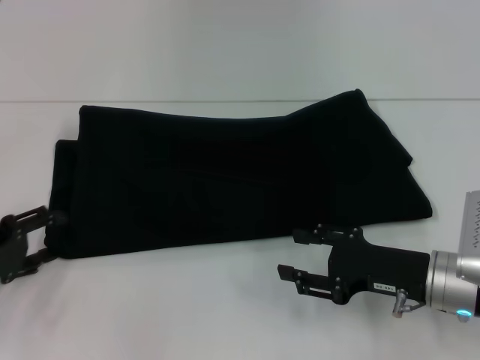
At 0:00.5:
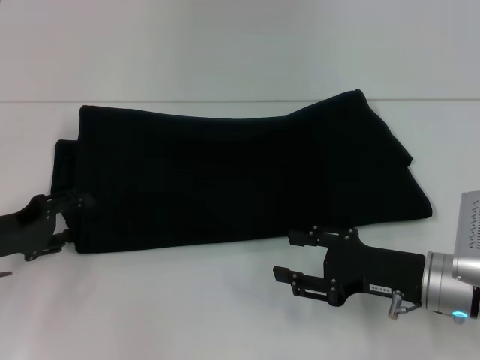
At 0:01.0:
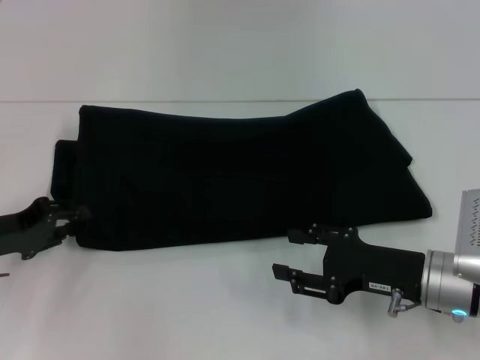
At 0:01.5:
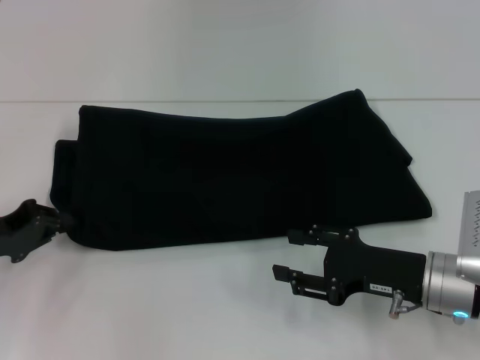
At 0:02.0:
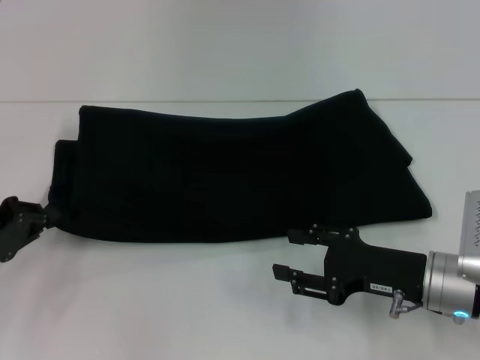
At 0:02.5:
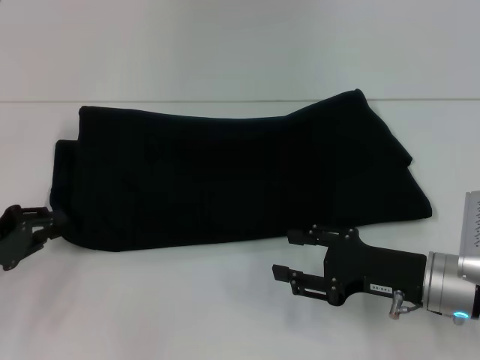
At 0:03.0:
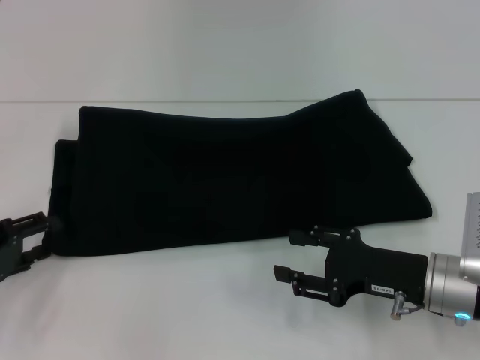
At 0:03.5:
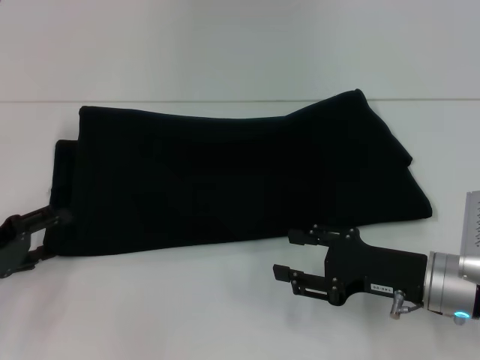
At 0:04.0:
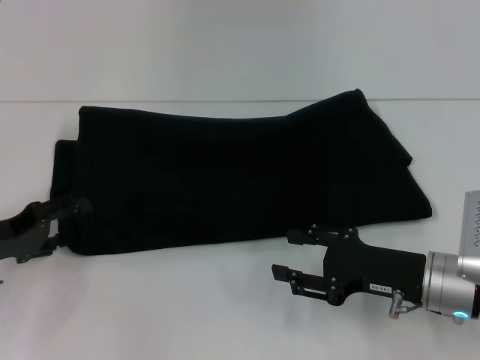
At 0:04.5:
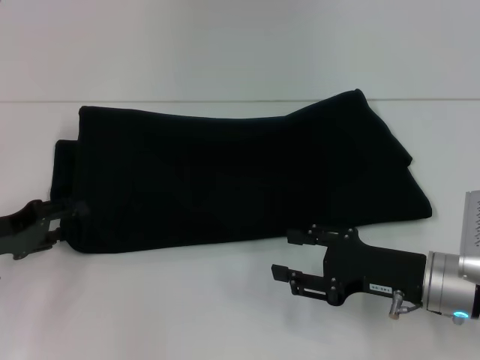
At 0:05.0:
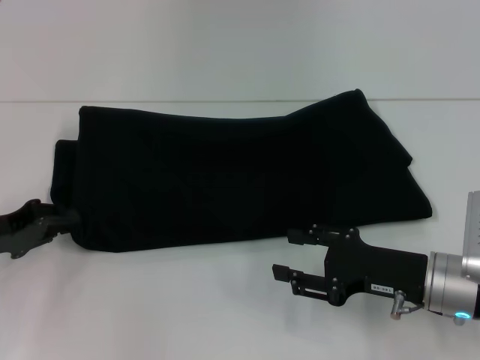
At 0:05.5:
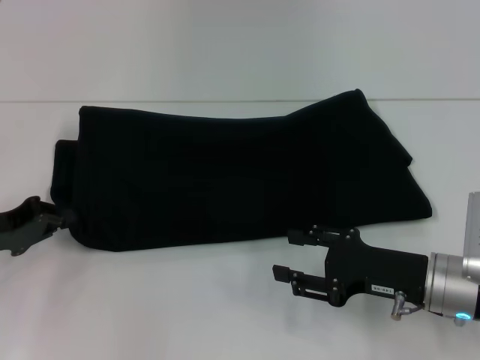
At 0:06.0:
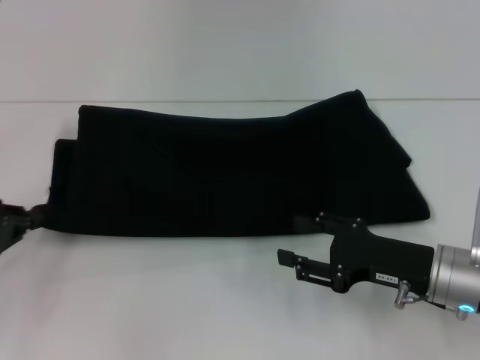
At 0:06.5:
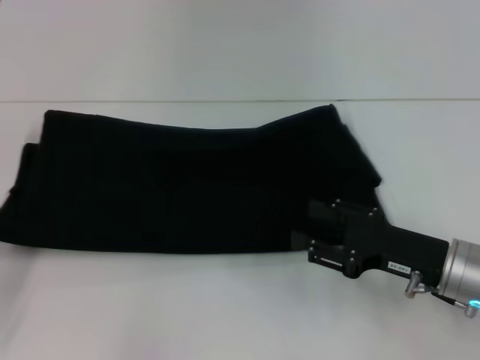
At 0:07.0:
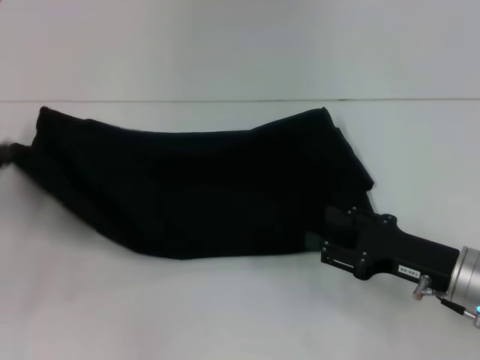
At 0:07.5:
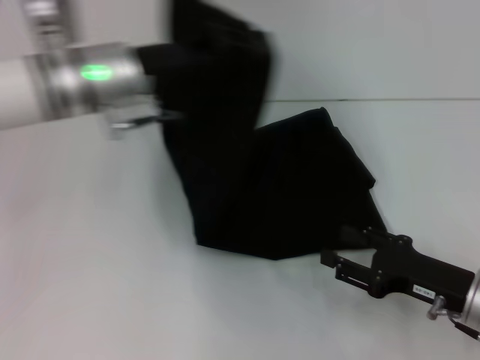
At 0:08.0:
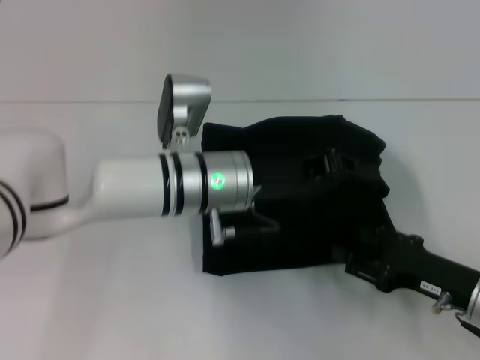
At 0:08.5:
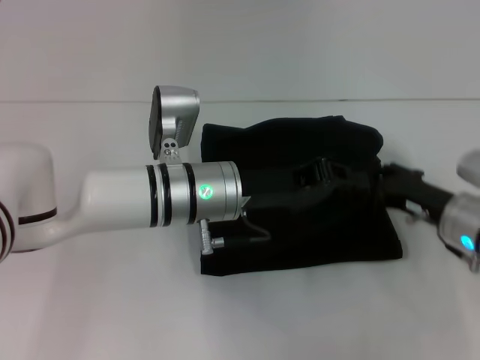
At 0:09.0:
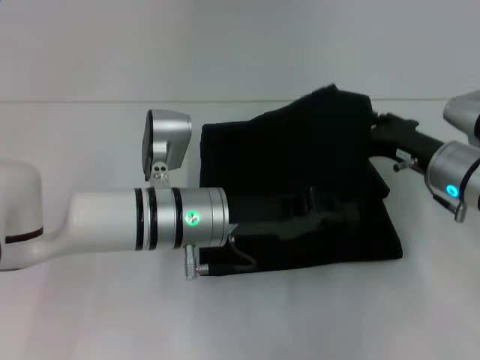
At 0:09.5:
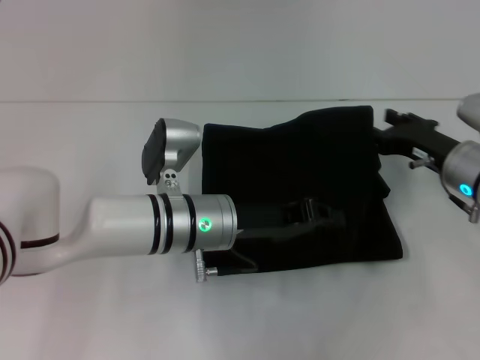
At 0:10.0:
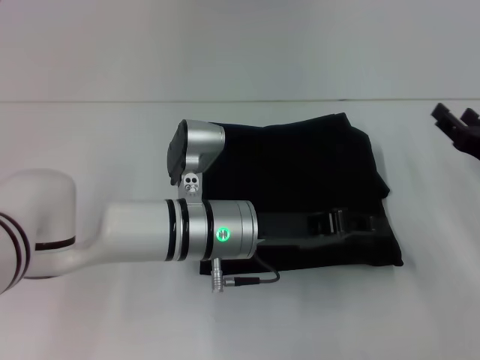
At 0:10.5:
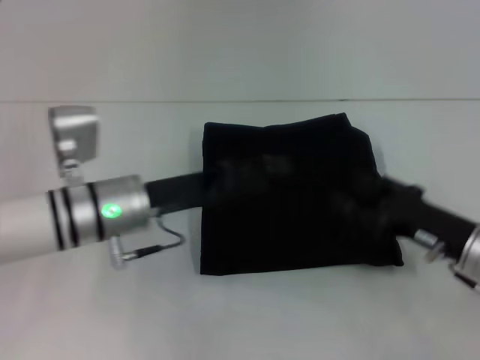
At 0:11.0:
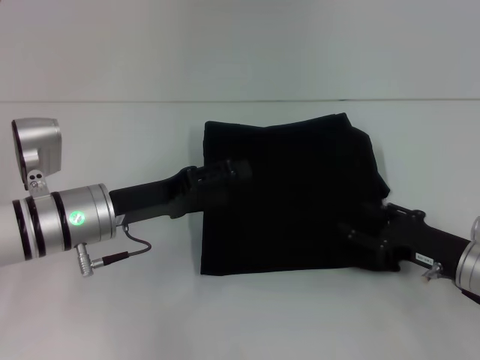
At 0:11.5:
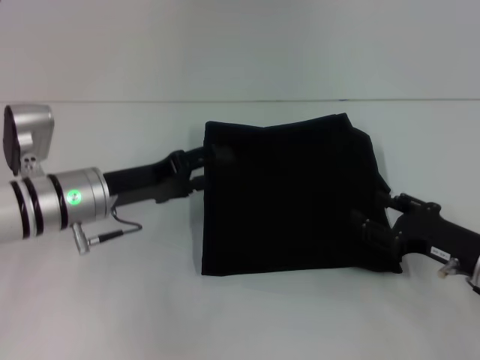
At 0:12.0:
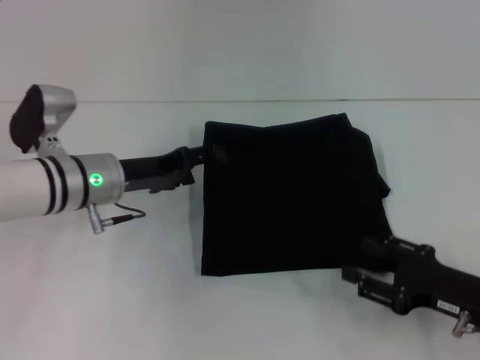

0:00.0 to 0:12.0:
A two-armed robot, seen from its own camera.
Step, 0:00.0 to 0:10.5: Fold the clothes with your left hand.
0:00.0 to 0:02.0: The left gripper closes up.
0:02.0 to 0:04.0: The left gripper opens up.
0:04.0 to 0:06.0: The left gripper closes.
0:06.0 to 0:08.0: The right gripper changes place by some 5 cm. The left gripper shifts roughly 30 cm to the right.
0:08.0 to 0:10.0: The right gripper moves forward, approximately 10 cm.
0:10.0 to 0:12.0: The left gripper heads to the left, covering roughly 15 cm, and opens up. The right gripper heads backward, covering about 10 cm.

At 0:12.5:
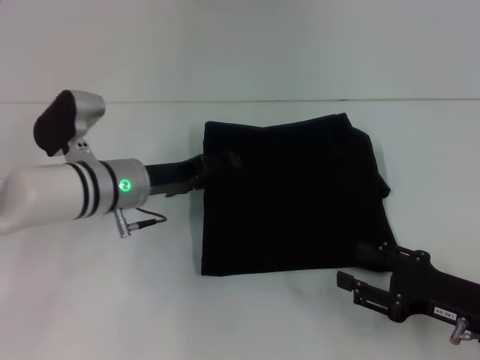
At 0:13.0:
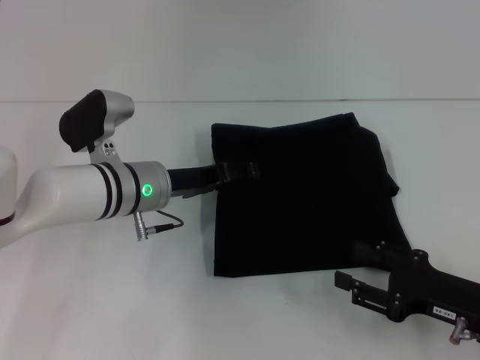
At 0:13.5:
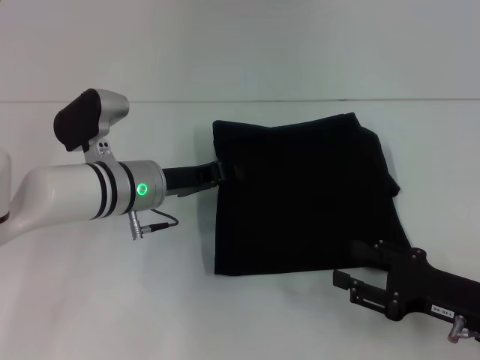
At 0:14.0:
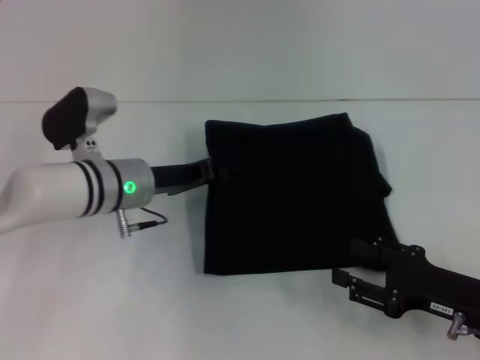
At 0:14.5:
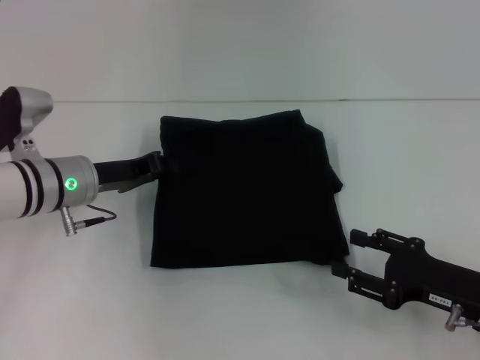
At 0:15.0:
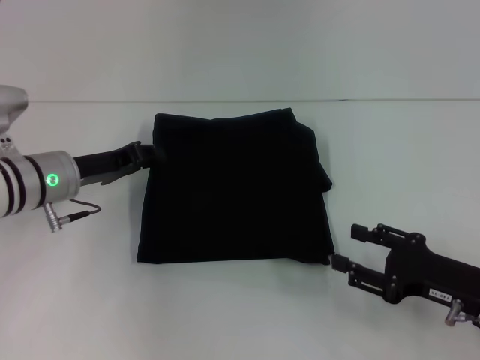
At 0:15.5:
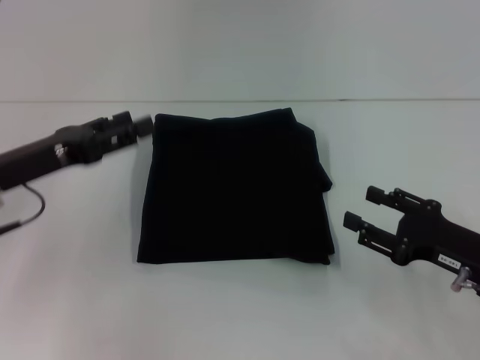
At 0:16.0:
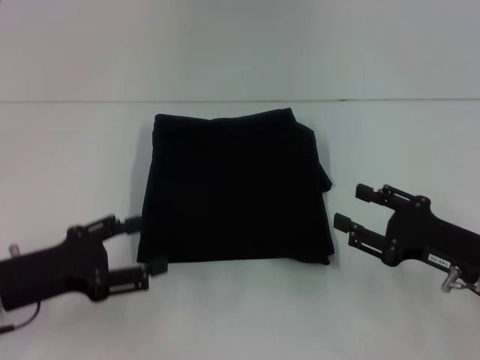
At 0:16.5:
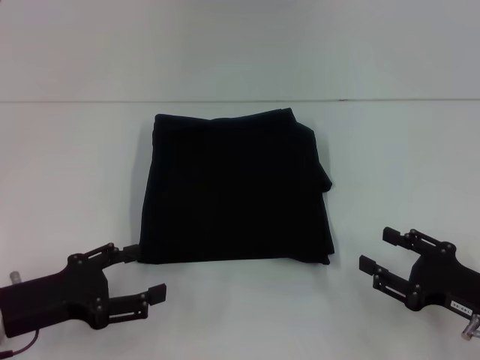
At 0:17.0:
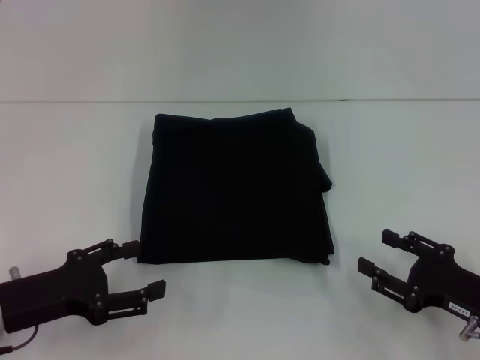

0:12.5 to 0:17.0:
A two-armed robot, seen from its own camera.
0:12.5 to 0:14.5: The left gripper is displaced to the left by about 5 cm, and closes up.
0:14.5 to 0:17.0: The left gripper moves backward and to the left, about 15 cm, and opens up.

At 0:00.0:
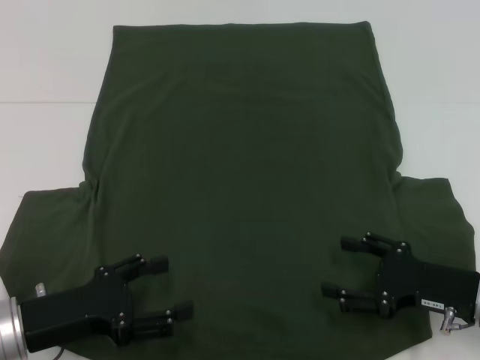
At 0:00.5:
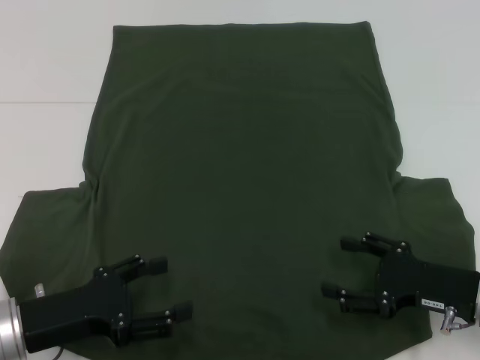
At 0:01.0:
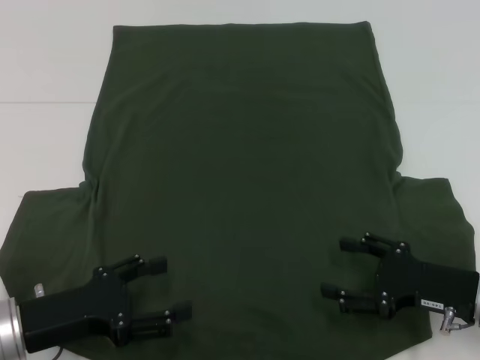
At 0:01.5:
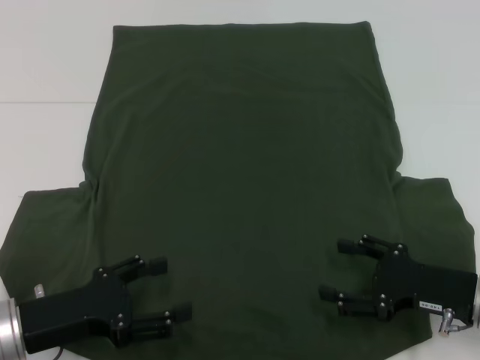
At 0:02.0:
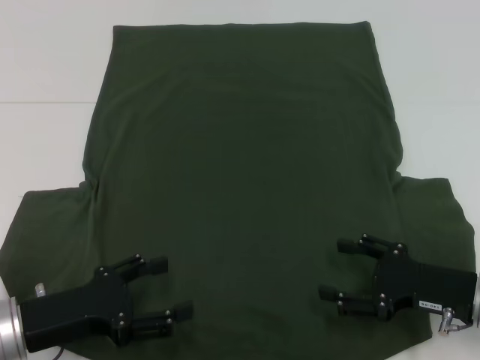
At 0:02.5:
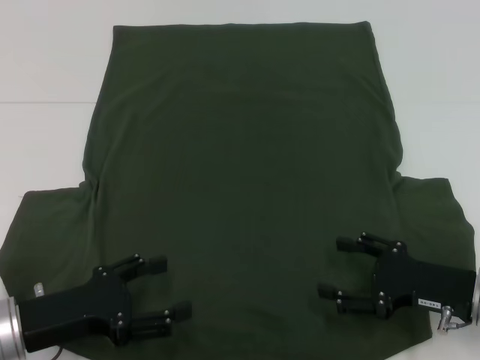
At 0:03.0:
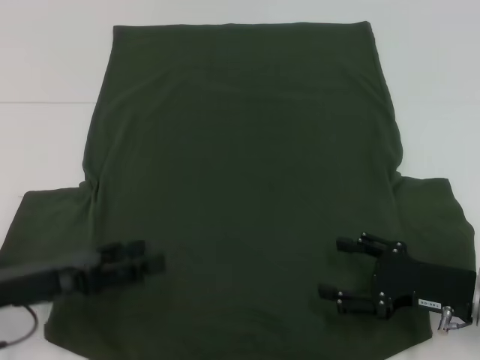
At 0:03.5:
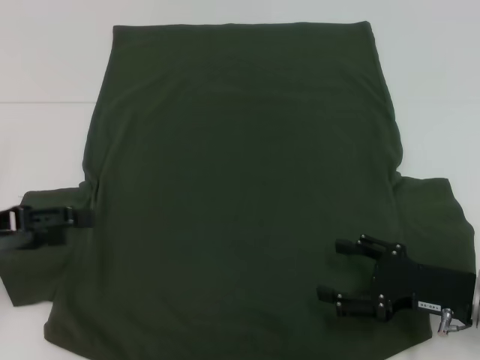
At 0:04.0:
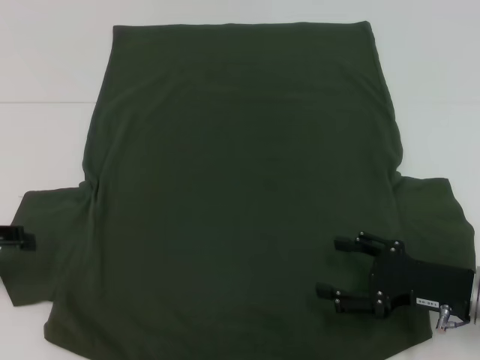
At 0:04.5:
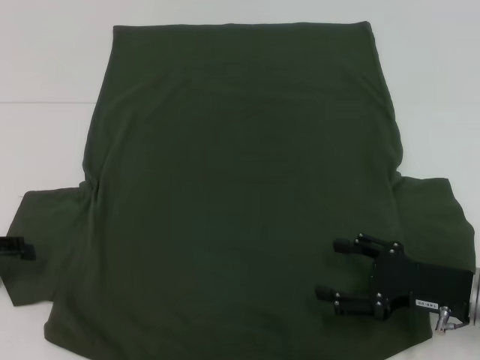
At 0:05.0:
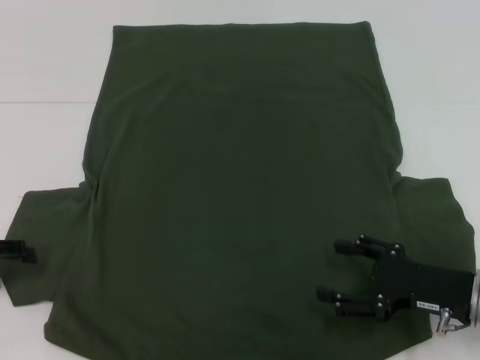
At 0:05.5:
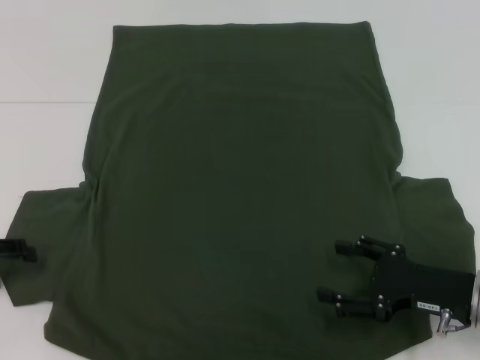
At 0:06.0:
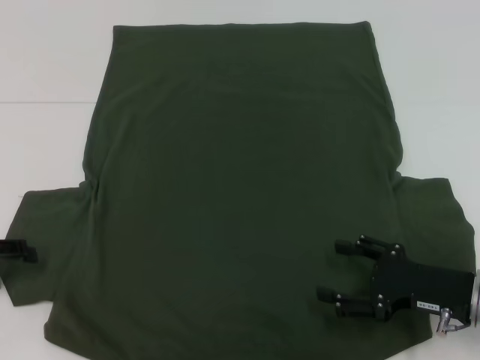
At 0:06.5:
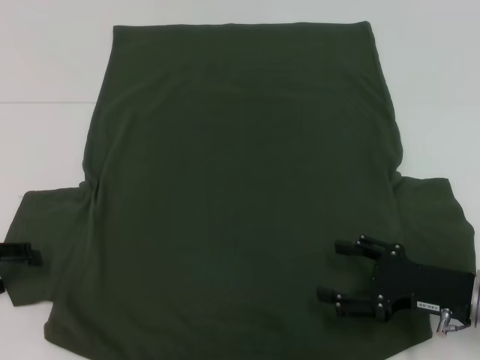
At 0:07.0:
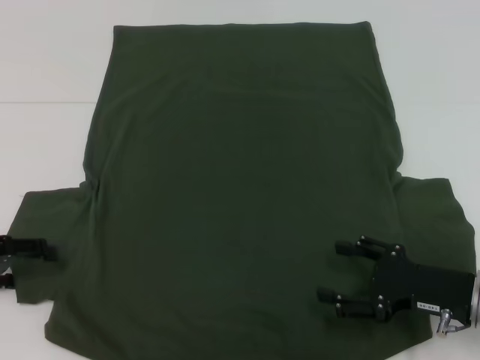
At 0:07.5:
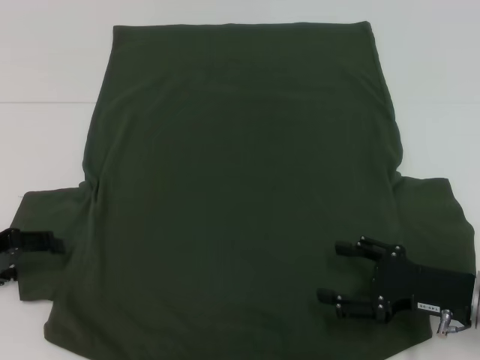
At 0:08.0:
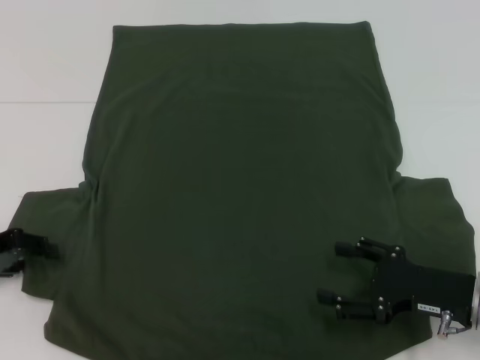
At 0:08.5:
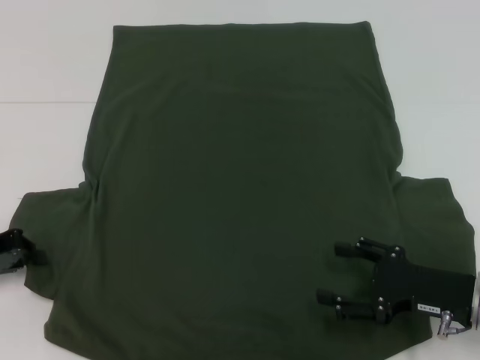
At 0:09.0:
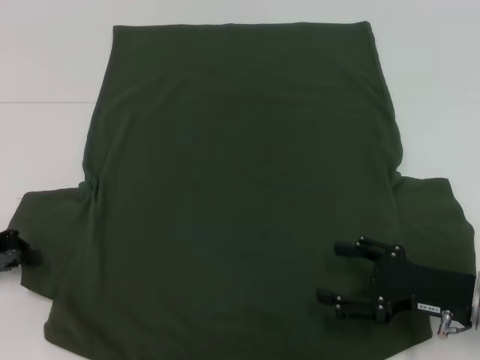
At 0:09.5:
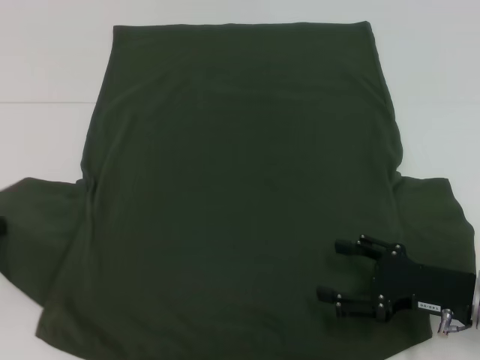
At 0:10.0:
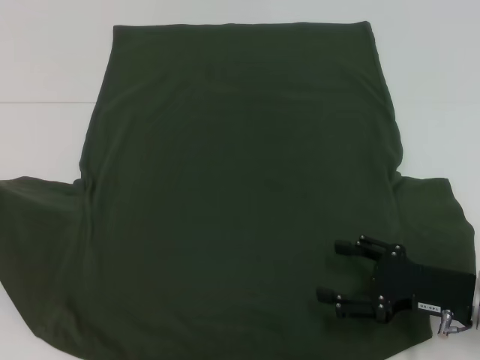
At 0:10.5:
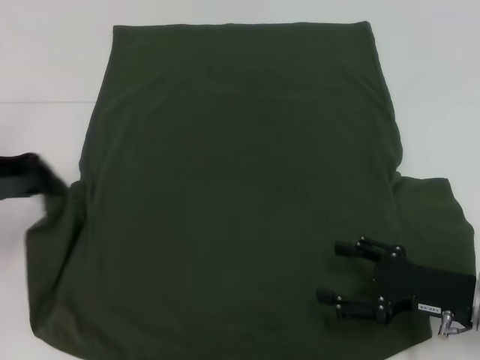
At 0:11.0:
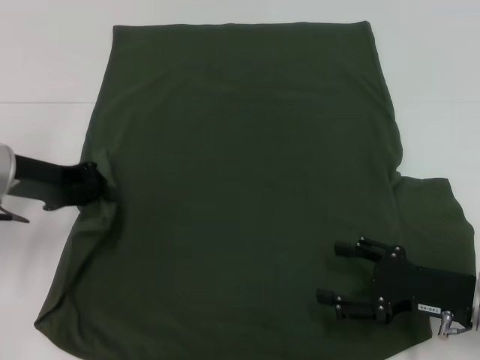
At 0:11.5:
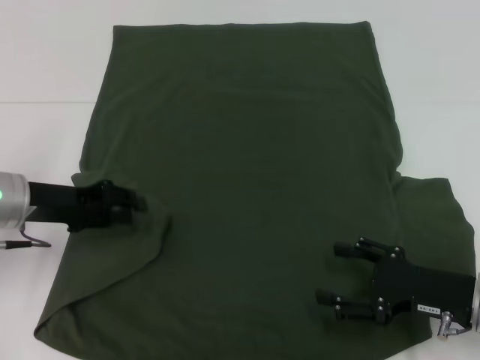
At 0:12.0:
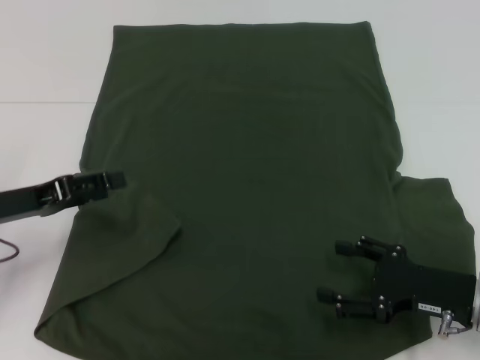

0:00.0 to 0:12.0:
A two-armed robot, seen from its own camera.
0:00.0 to 0:02.0: The two grippers keep their place.
0:02.0 to 0:04.0: The left gripper heads to the left, upward and forward, covering roughly 15 cm.
0:04.0 to 0:08.0: The grippers make only small movements.
0:08.0 to 0:10.0: The left gripper shifts approximately 5 cm upward, and closes up.
0:10.0 to 0:12.0: The left gripper is displaced to the right and downward by roughly 10 cm, and opens its fingers.
